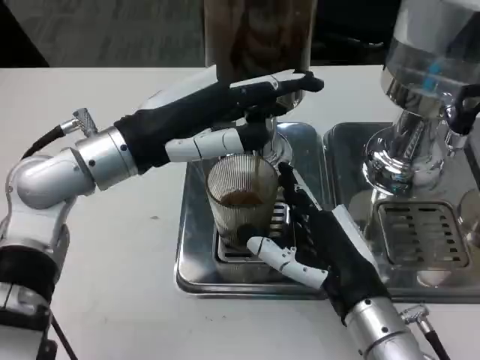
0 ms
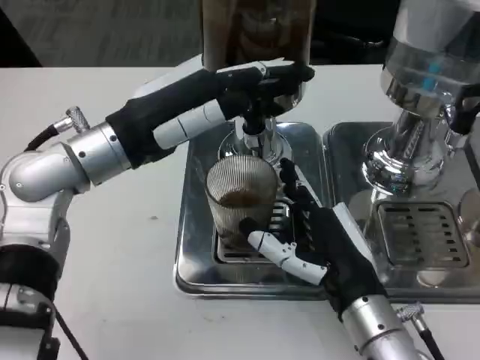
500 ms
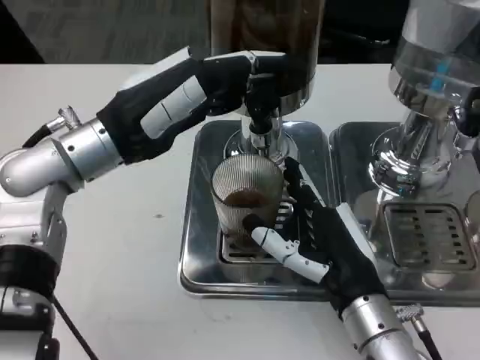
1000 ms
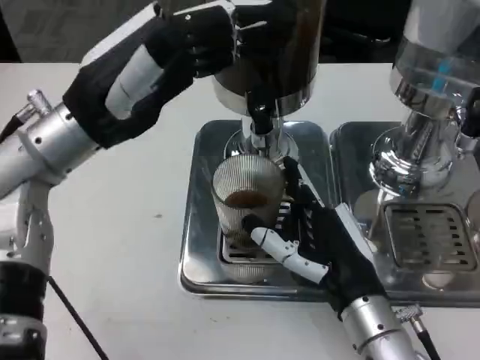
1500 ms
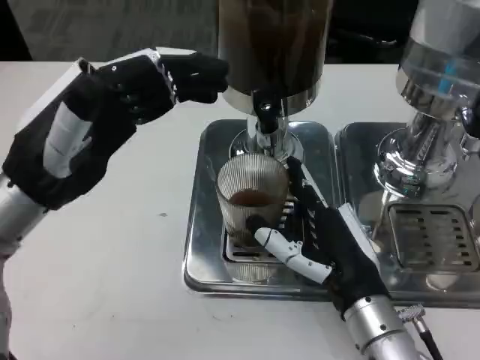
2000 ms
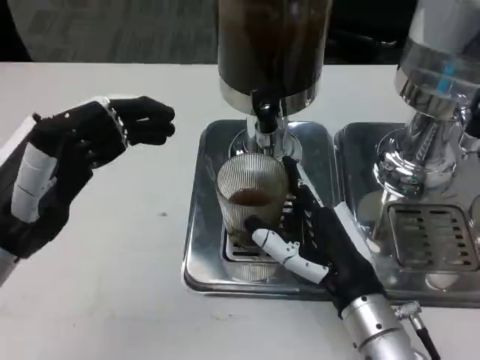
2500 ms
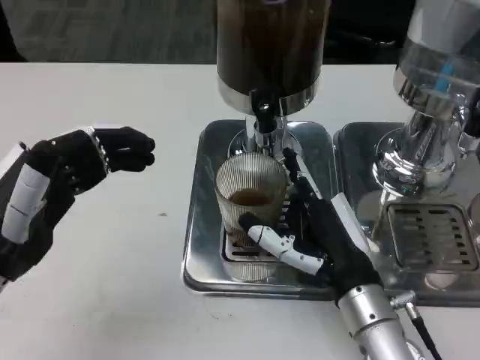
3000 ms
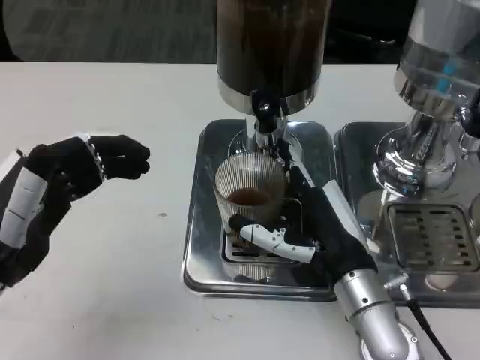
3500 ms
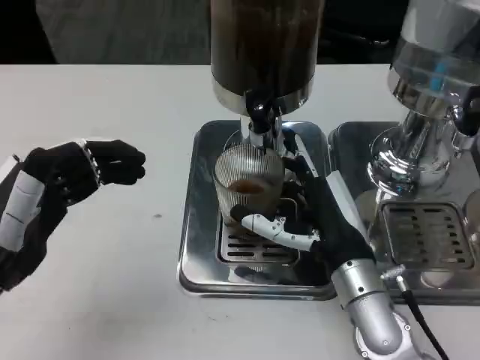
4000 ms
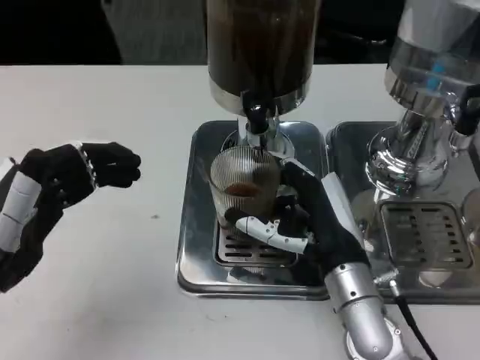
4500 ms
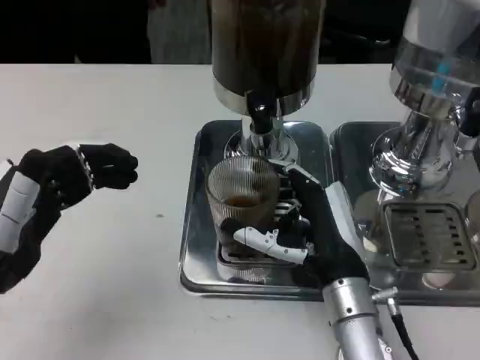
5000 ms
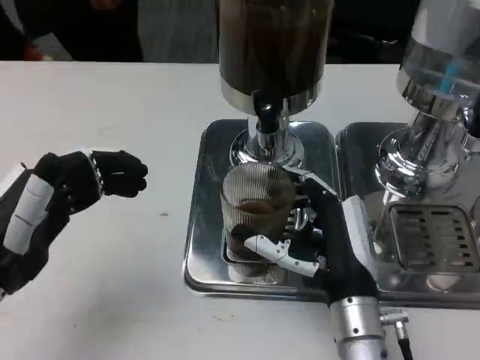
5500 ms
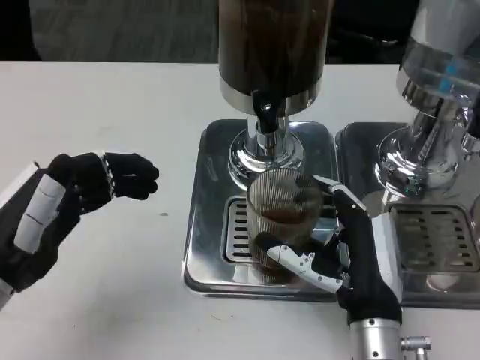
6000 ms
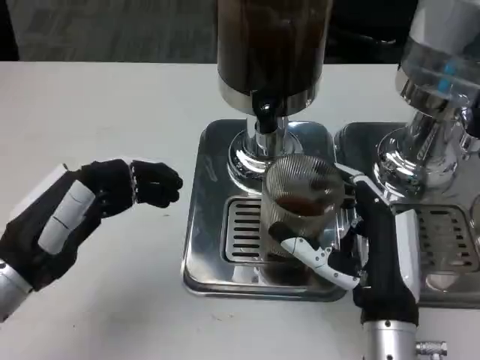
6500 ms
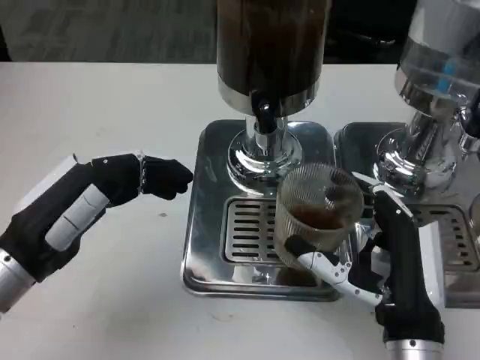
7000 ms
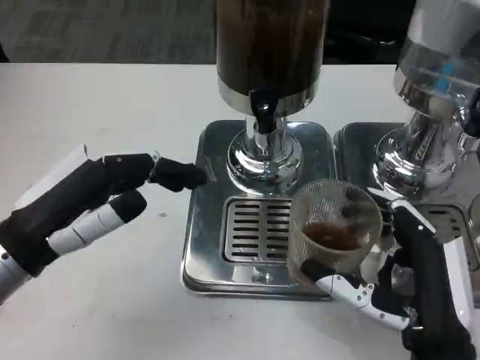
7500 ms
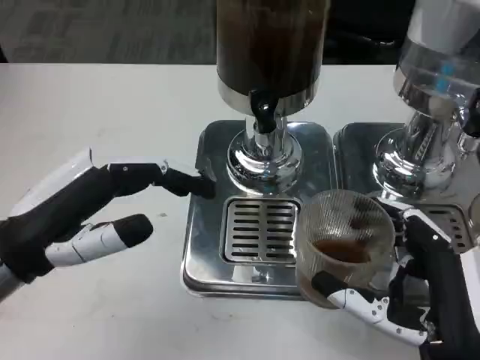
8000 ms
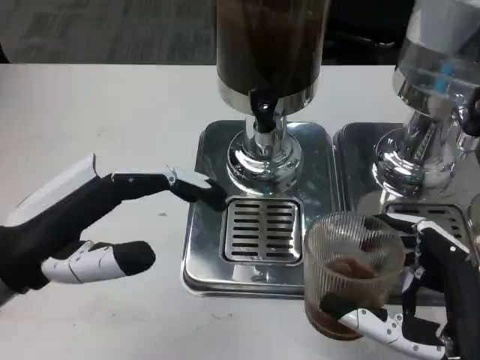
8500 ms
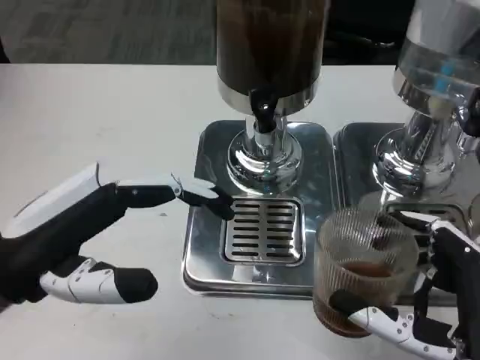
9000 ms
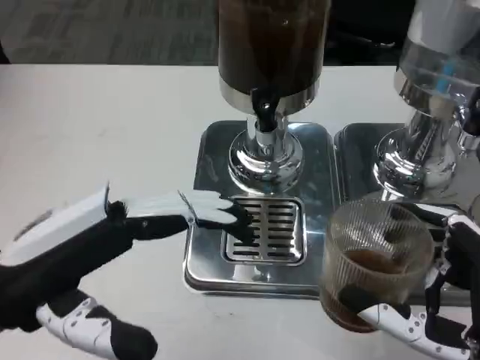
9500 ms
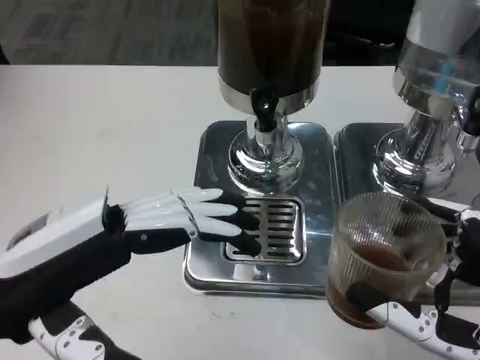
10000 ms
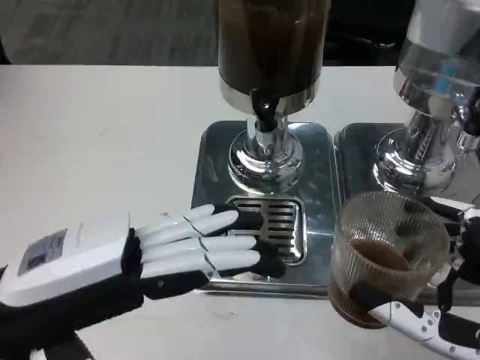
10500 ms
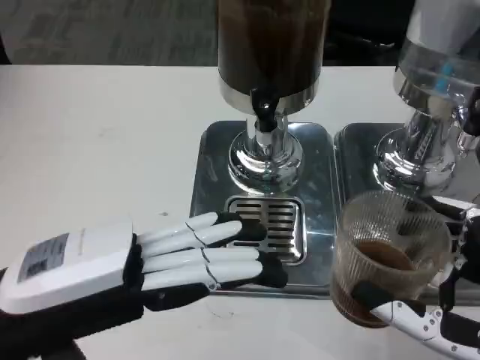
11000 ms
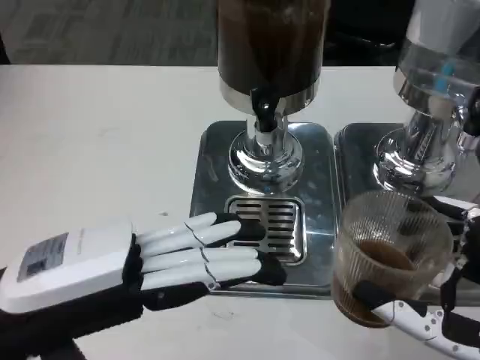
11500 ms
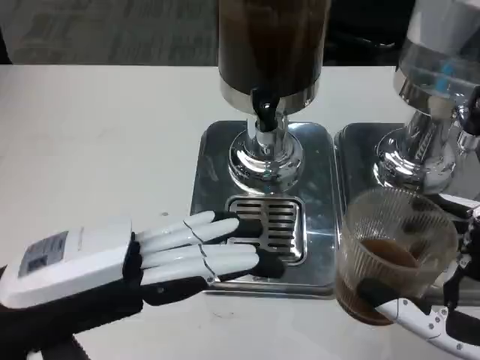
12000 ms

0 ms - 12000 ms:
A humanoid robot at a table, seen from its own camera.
Task of the whole recording: Grasp the cup under the faucet to collect the drink, then remove the cup.
0 ms - 2000 ms: The left hand moves backward and to the left, some 10 cm.
2000 ms - 4000 ms: The left hand is displaced backward and downward by roughly 10 cm.
4000 ms - 6000 ms: The right hand heads backward, covering some 5 cm.
6000 ms - 8000 ms: The right hand goes about 10 cm backward and to the right.

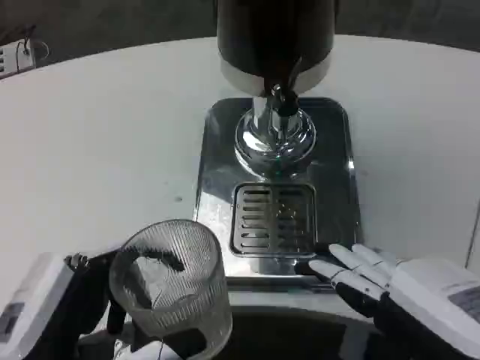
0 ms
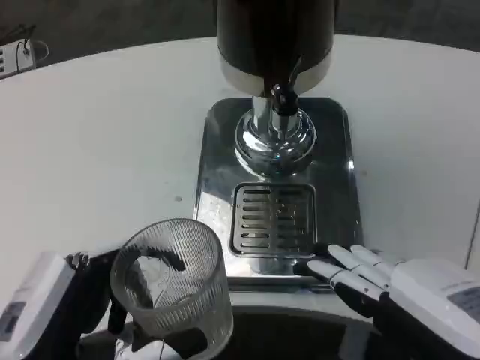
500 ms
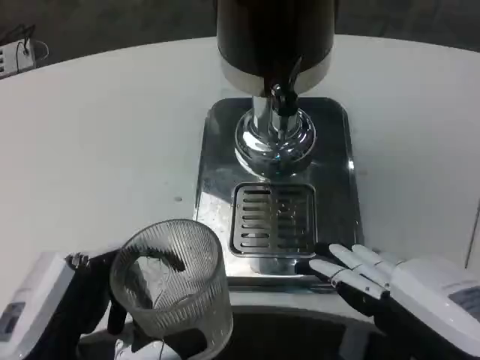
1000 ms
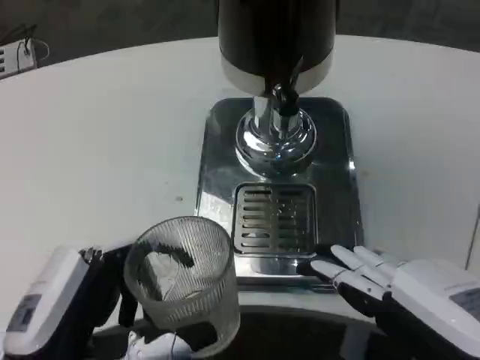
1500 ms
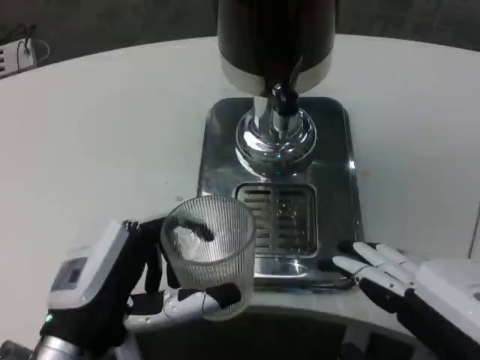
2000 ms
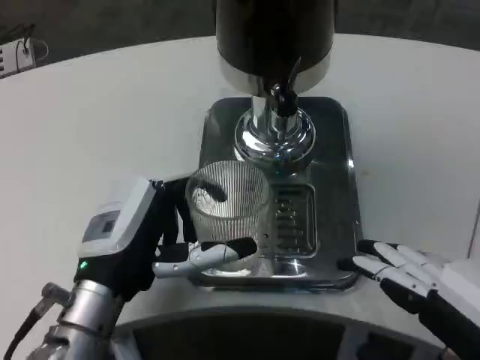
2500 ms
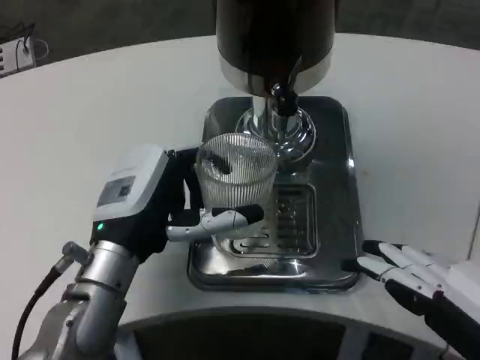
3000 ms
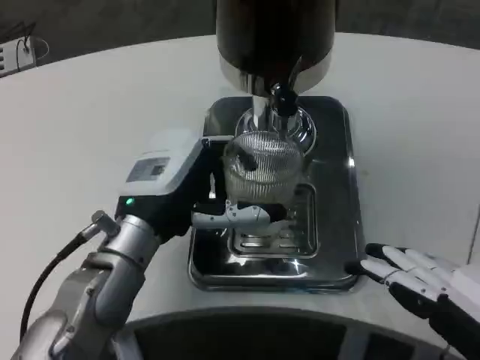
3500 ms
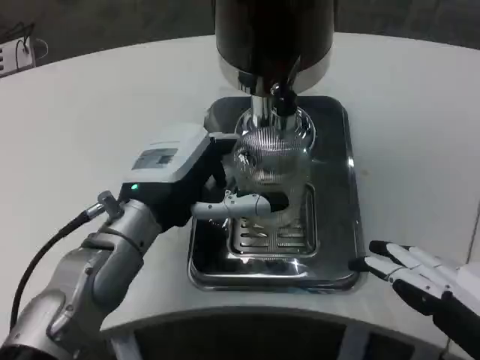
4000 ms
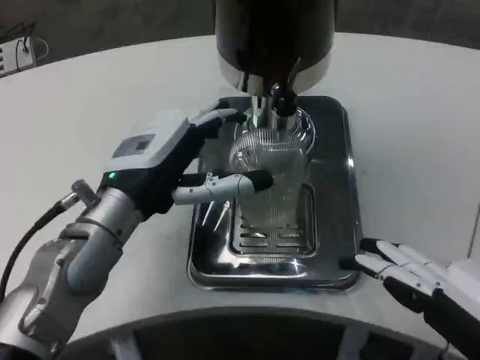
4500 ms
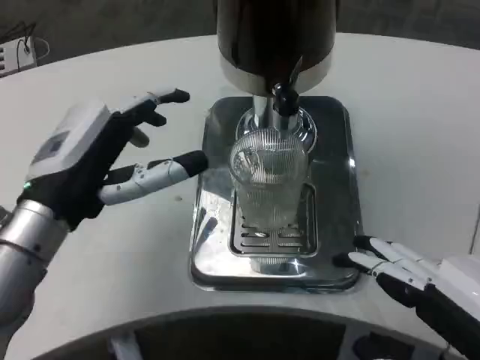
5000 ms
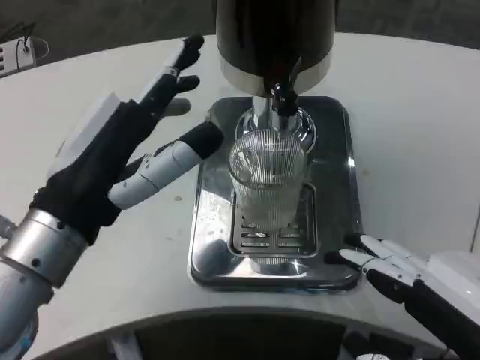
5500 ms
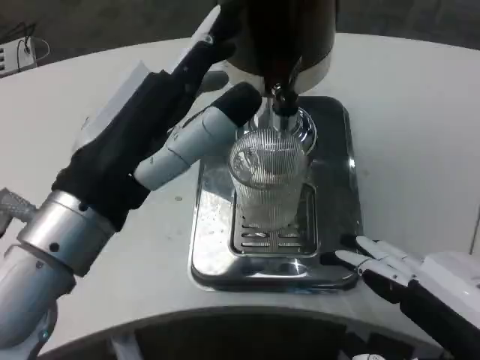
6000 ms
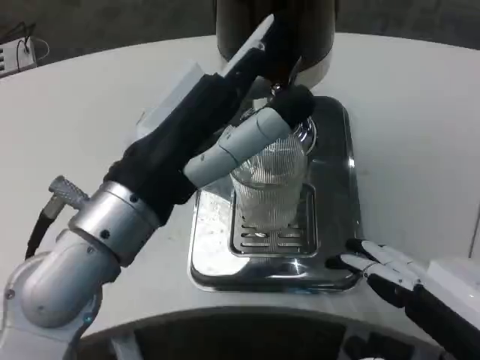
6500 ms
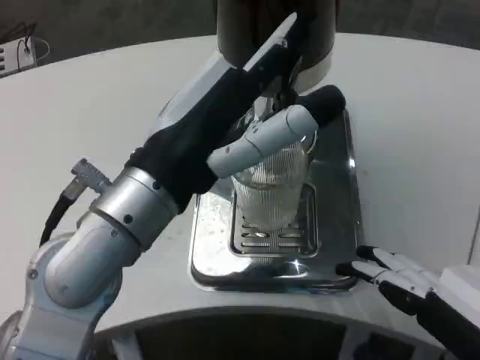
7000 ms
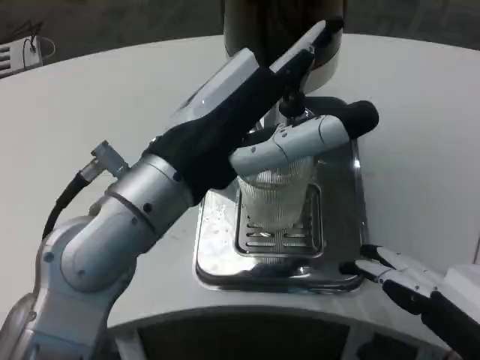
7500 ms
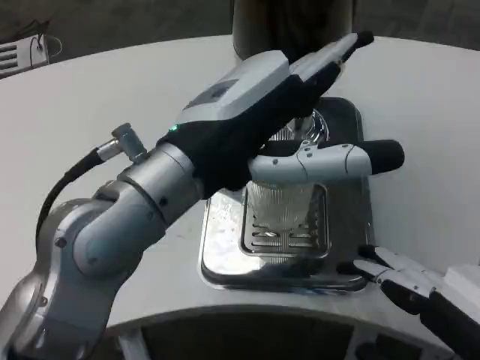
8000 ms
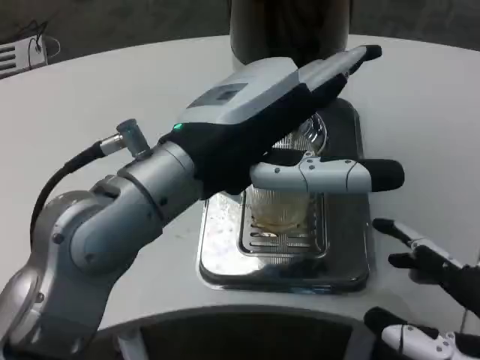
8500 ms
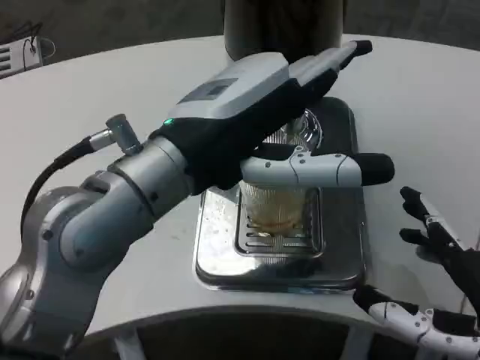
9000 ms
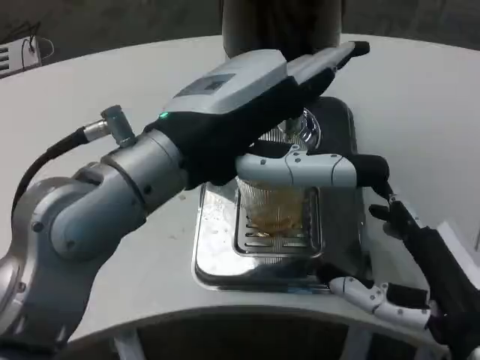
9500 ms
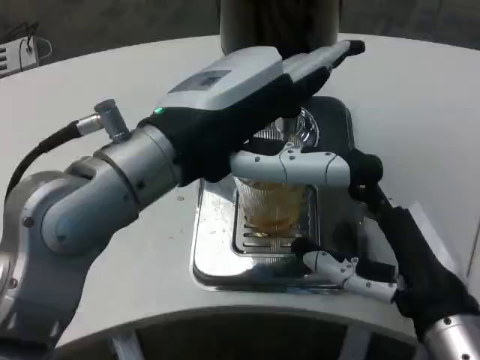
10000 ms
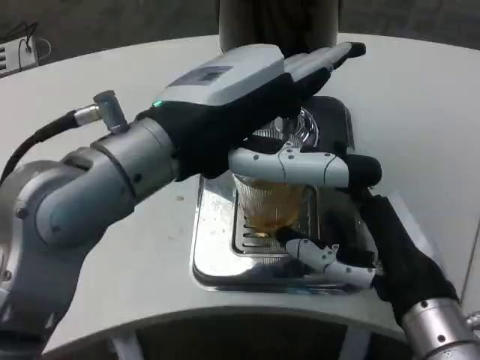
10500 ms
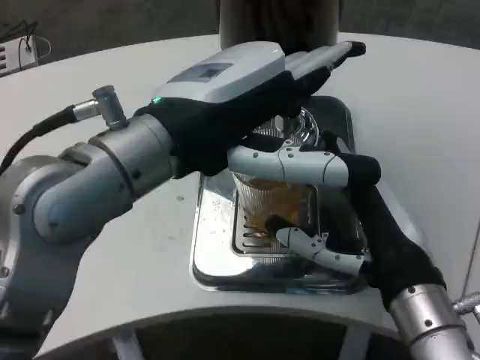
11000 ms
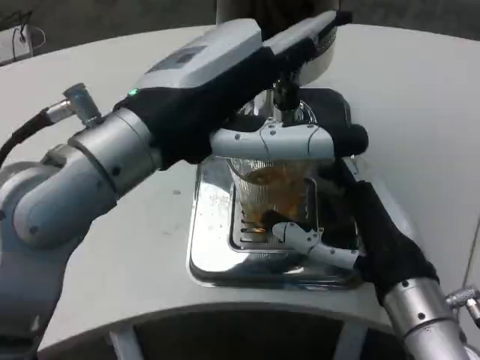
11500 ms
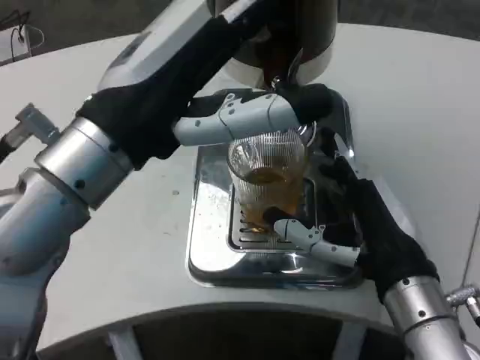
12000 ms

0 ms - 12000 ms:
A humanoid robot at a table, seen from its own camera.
Task of the whole recording: Grasp the cup under the faucet to collect the drink, then remove the cup.
0 ms - 2000 ms: The left hand travels forward by roughly 5 cm.
2000 ms - 4000 ms: The left hand moves forward and upward, some 15 cm.
4000 ms - 6000 ms: The left hand goes approximately 15 cm backward and upward.
6000 ms - 8000 ms: The left hand ends up approximately 5 cm from where it was.
8000 ms - 10000 ms: The right hand shifts approximately 10 cm forward and to the left.

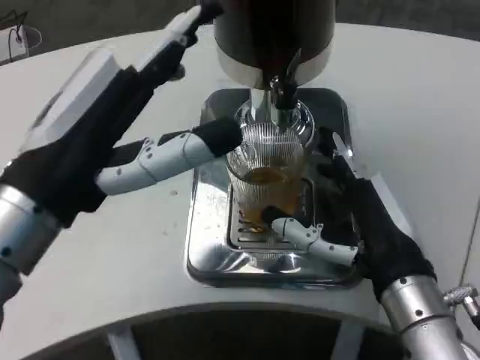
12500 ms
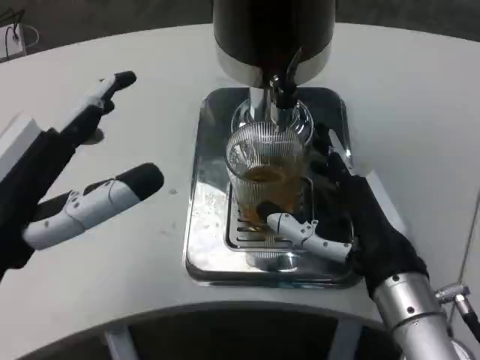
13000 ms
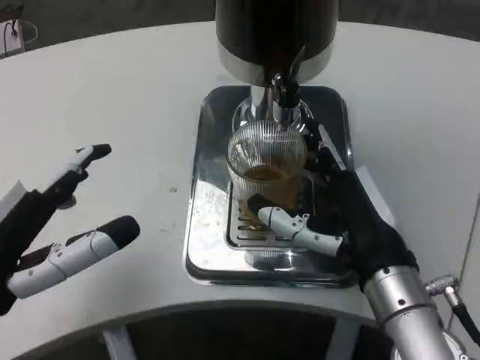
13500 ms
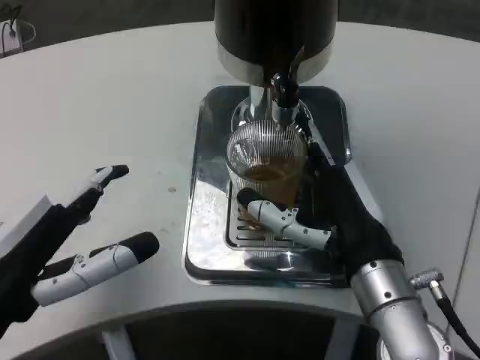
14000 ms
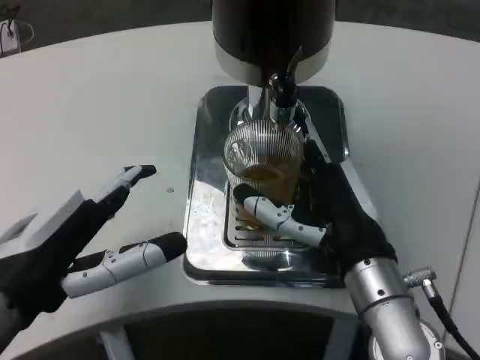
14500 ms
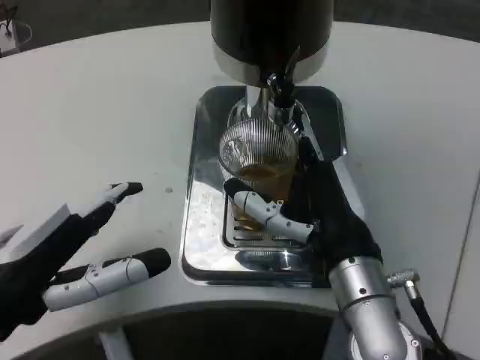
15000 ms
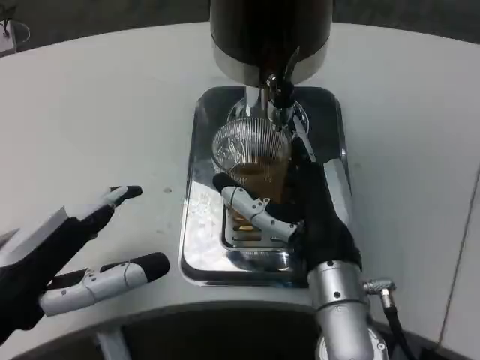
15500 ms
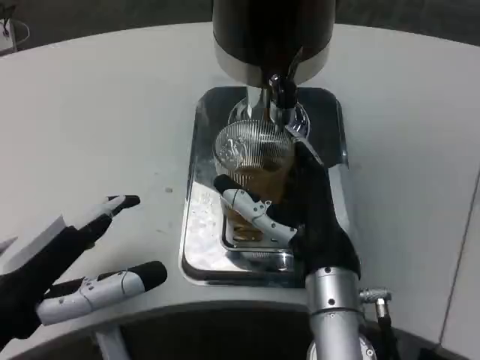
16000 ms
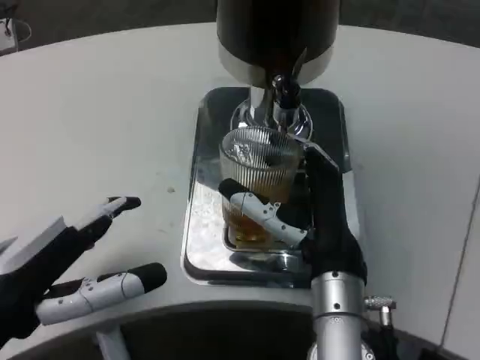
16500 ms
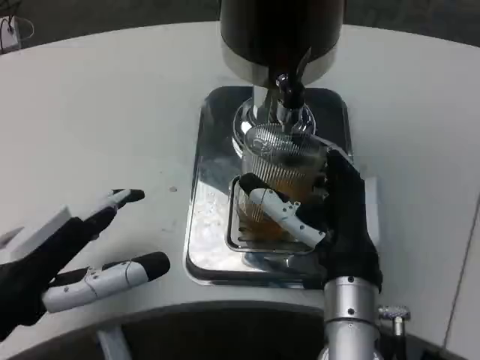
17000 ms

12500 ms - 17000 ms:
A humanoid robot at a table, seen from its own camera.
Task of the whole recording: Grasp the cup under the faucet to collect the drink, then remove the cup.
12500 ms - 14500 ms: The left hand moves downward, about 5 cm.
